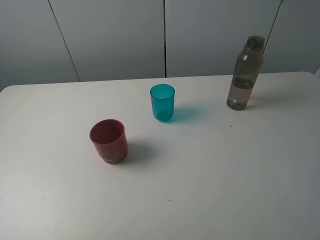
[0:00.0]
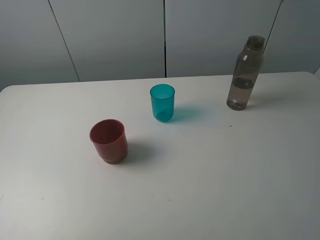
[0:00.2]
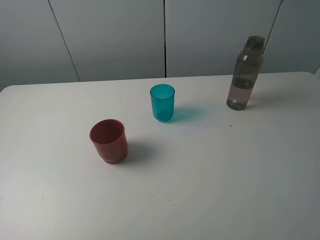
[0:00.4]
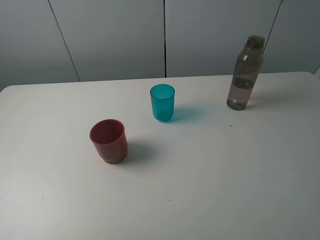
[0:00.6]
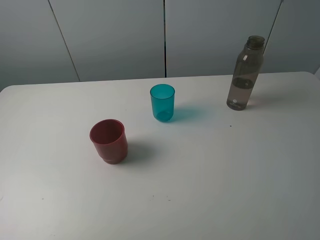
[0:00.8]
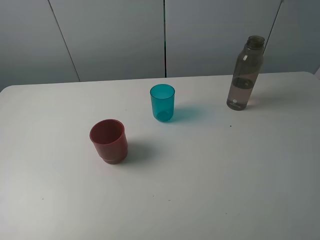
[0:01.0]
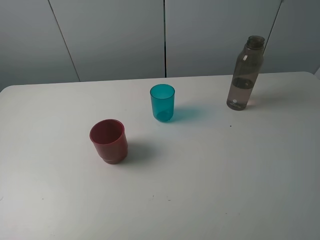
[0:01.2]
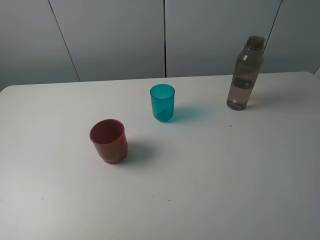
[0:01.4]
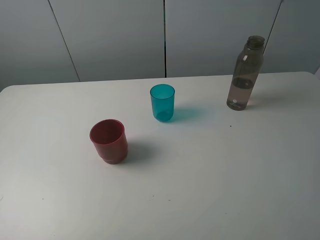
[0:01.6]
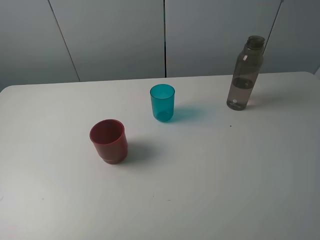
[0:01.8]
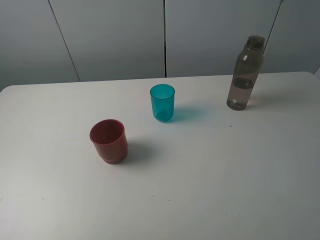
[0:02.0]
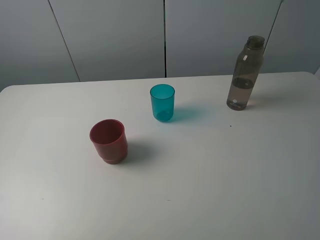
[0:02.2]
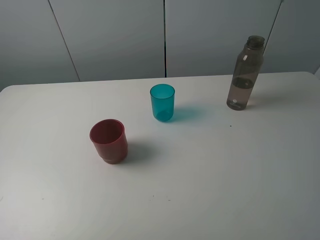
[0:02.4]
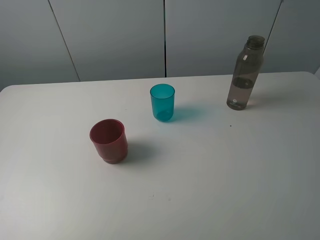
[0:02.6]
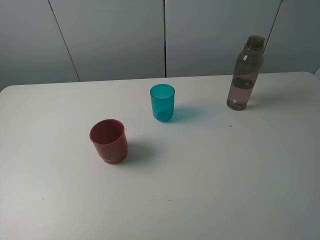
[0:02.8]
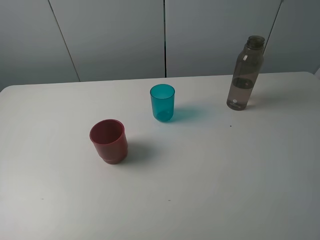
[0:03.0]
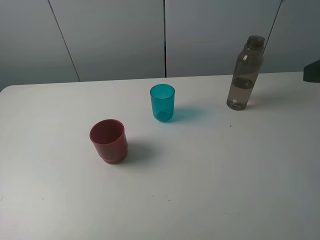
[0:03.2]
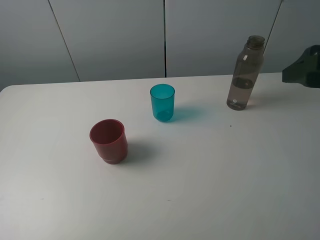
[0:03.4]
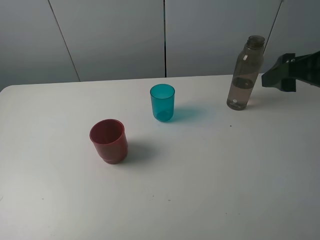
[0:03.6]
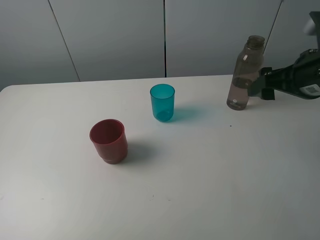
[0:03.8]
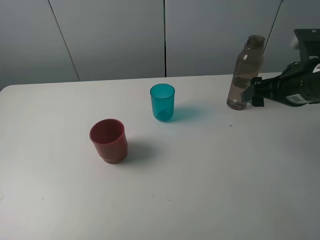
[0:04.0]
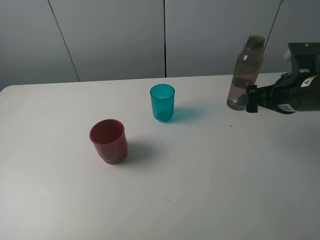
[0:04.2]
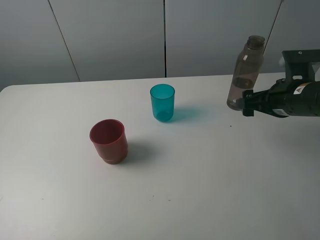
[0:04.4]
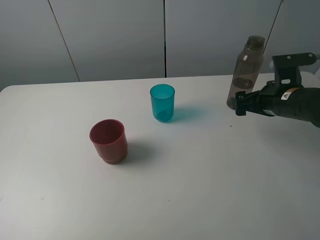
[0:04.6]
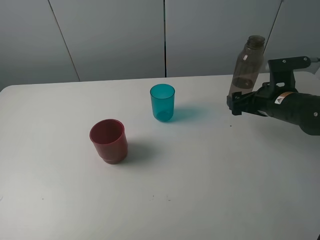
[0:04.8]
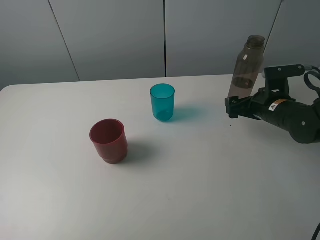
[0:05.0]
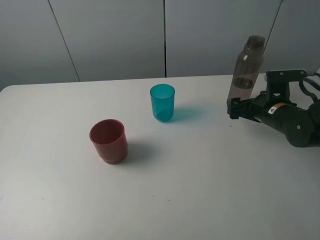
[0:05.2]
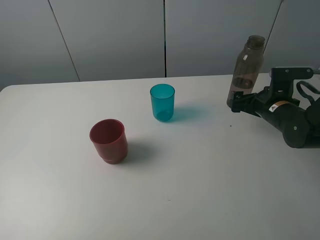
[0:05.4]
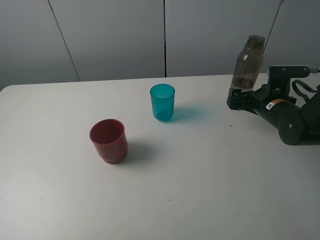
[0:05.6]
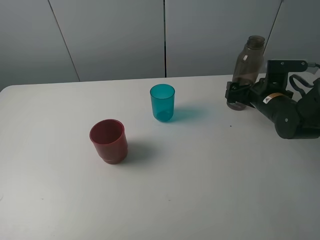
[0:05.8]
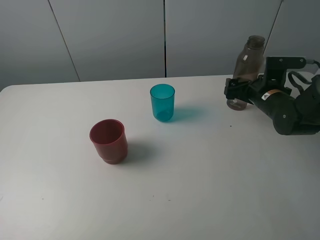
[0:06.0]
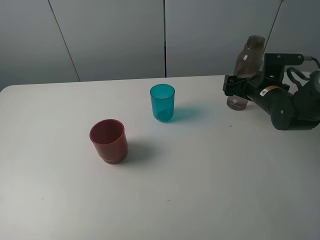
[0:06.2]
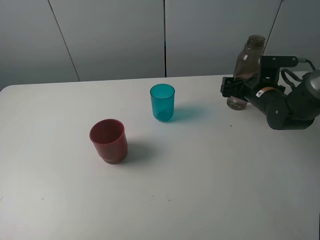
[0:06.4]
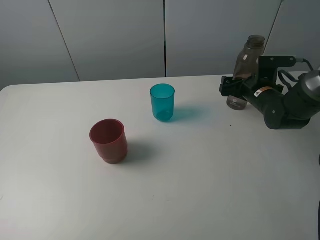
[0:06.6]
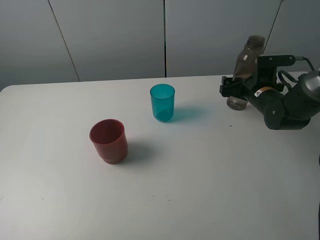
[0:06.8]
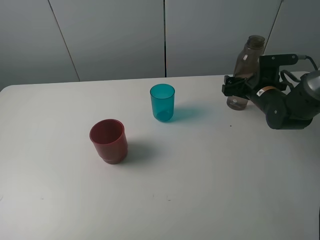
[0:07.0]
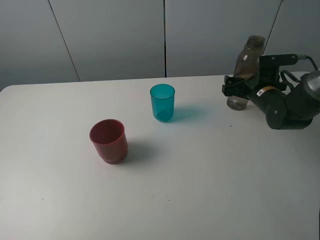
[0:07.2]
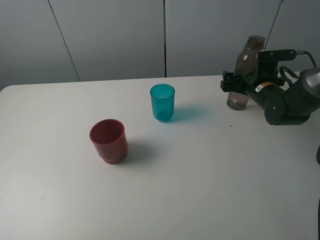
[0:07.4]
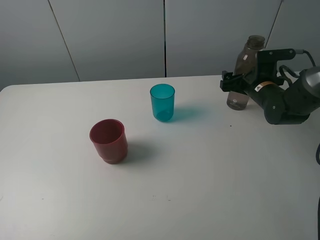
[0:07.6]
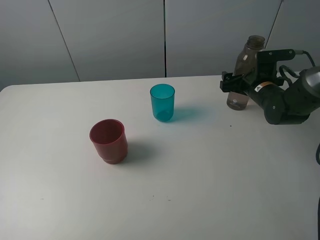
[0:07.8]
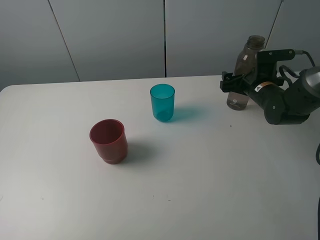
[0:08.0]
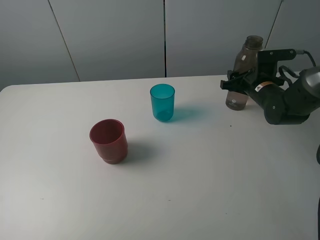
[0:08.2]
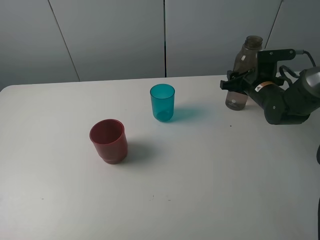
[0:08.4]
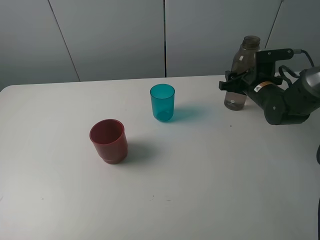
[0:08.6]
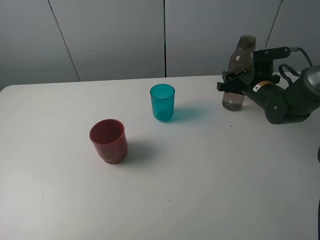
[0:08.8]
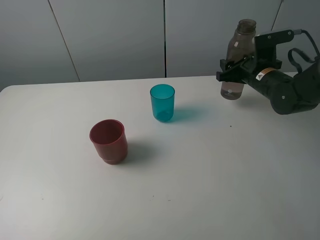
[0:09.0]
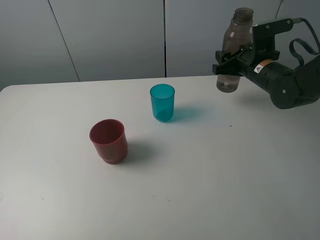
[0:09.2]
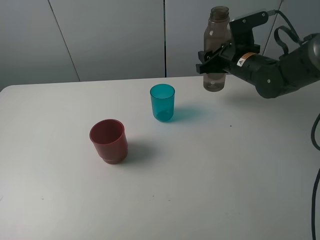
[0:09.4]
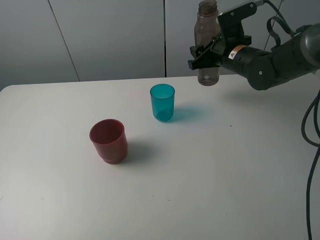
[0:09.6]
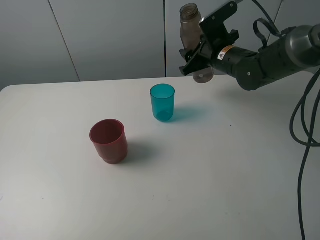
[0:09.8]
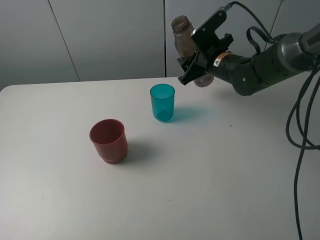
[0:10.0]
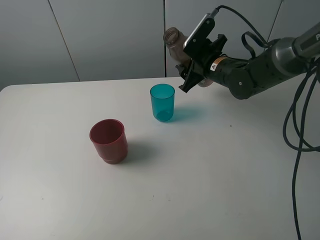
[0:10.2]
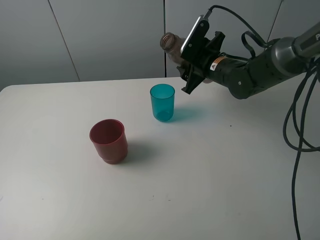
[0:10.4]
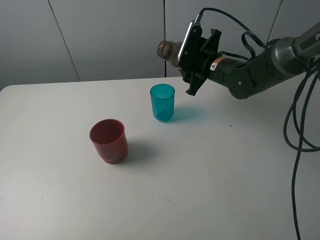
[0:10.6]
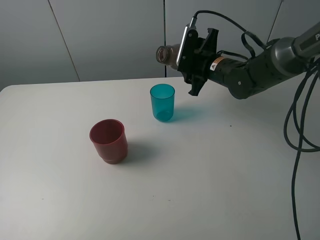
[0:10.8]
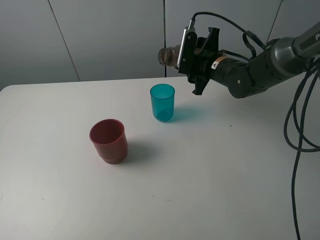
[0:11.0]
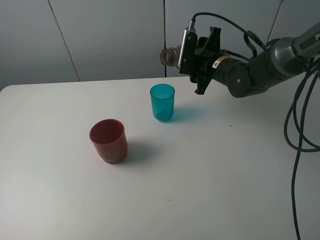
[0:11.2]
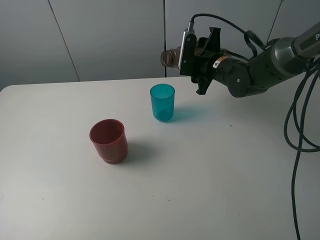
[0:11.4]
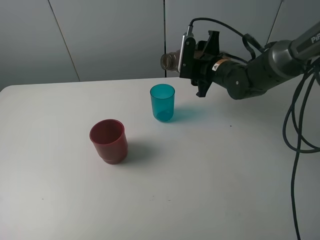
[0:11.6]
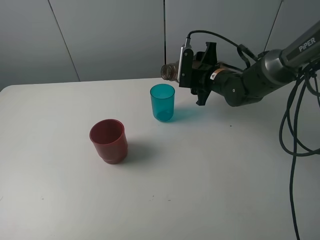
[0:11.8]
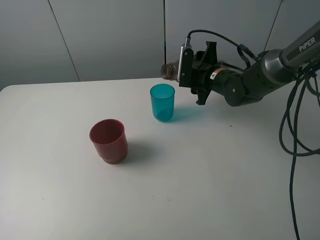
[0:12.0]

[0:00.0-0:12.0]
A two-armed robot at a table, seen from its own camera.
Task of the whole recording: pick up the bottle and pour water into the cup, then pick up the cup containing water and pour it into another cup.
Step, 0:00.0 to 0:08.4: Grasp the brown bottle with the right gripper.
0:03.0 to 0:04.4: The right gripper is displaced downward and forward by roughly 20 cm.
0:04.4 to 0:06.0: The right gripper goes about 10 cm forward and downward.
0:06.0 to 0:07.6: The grippers make only small movements.
0:07.6 to 0:09.0: The right gripper closes up.
0:09.0 to 0:10.4: The right gripper moves to the left, about 10 cm.

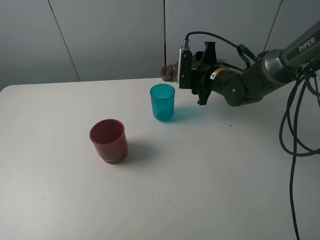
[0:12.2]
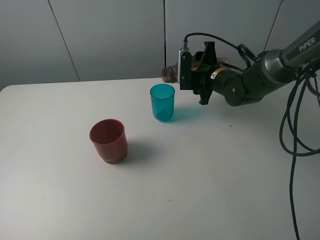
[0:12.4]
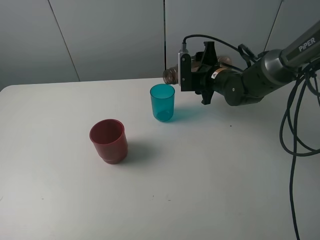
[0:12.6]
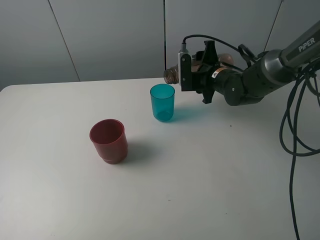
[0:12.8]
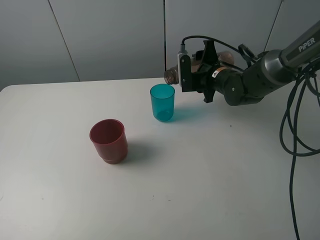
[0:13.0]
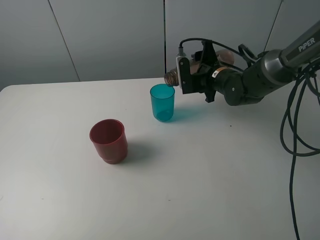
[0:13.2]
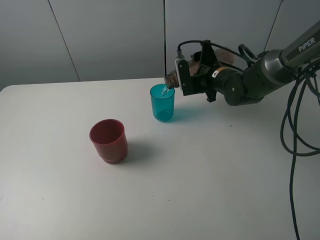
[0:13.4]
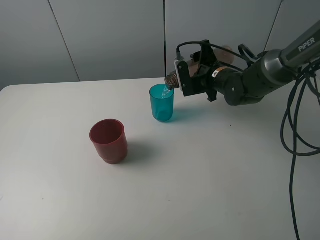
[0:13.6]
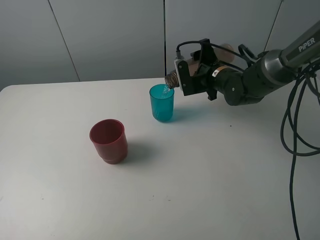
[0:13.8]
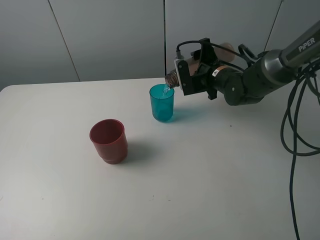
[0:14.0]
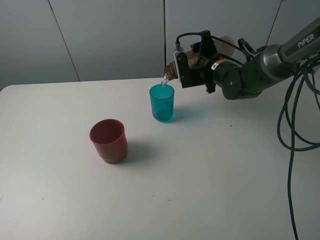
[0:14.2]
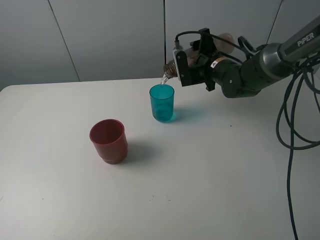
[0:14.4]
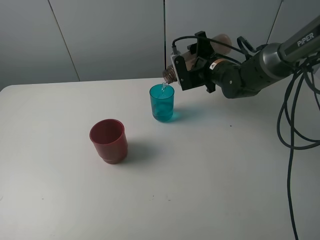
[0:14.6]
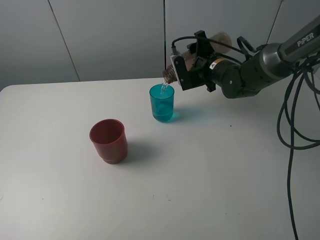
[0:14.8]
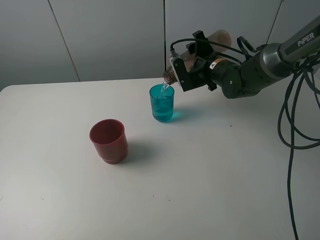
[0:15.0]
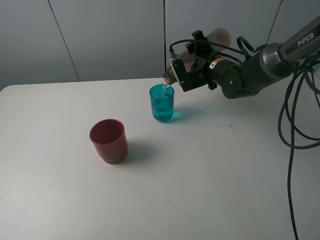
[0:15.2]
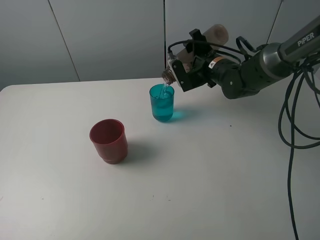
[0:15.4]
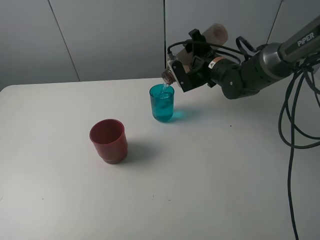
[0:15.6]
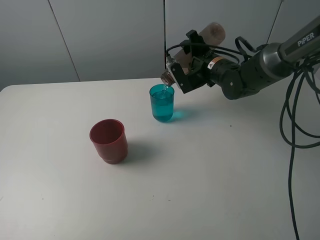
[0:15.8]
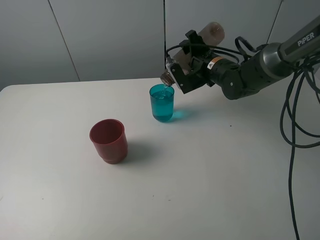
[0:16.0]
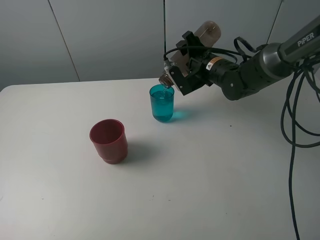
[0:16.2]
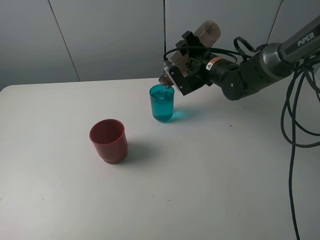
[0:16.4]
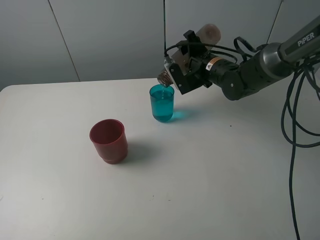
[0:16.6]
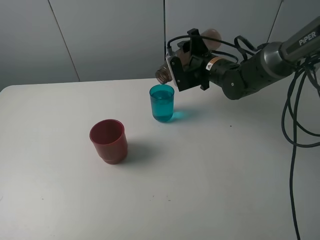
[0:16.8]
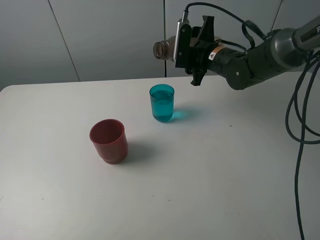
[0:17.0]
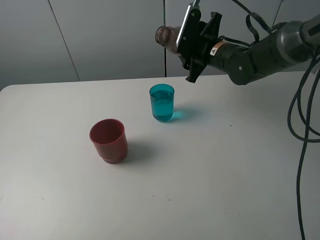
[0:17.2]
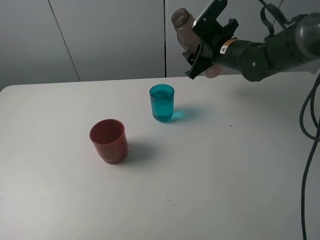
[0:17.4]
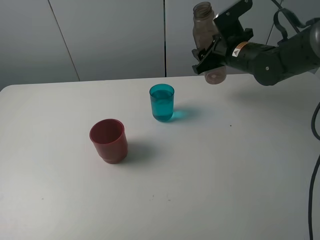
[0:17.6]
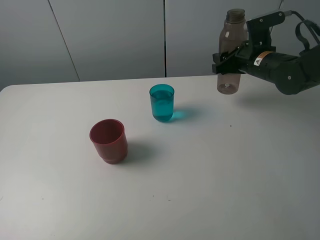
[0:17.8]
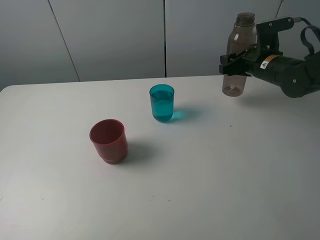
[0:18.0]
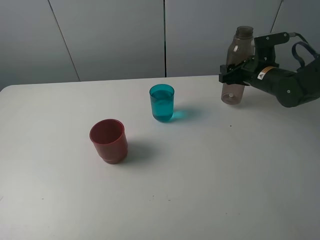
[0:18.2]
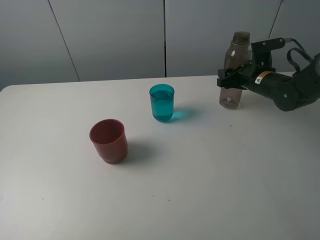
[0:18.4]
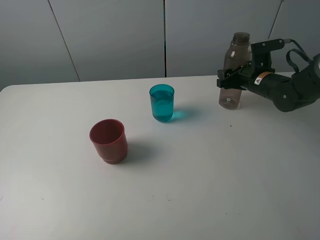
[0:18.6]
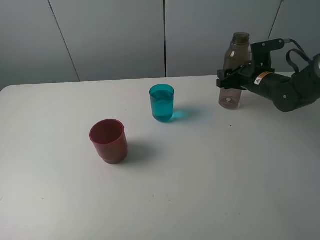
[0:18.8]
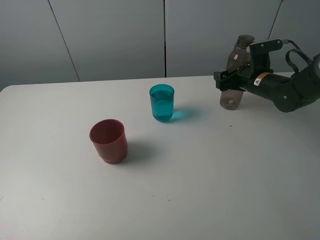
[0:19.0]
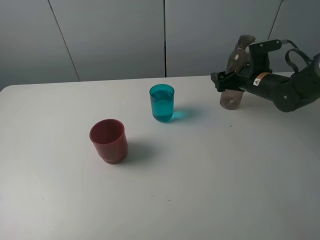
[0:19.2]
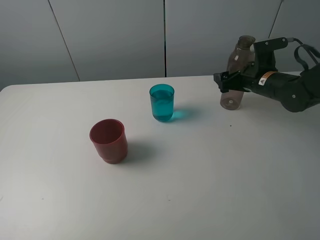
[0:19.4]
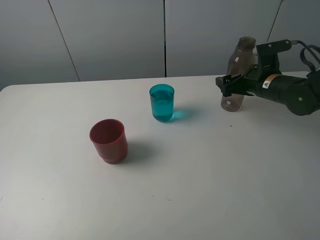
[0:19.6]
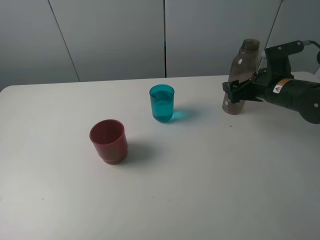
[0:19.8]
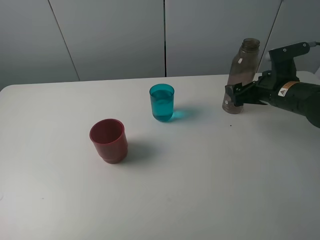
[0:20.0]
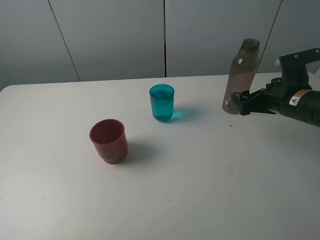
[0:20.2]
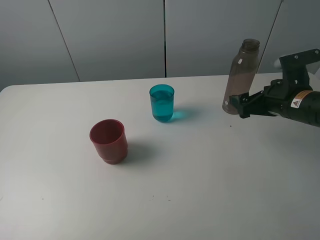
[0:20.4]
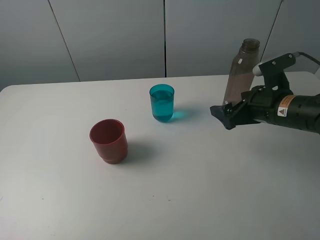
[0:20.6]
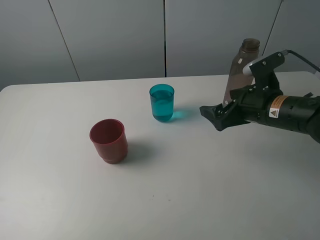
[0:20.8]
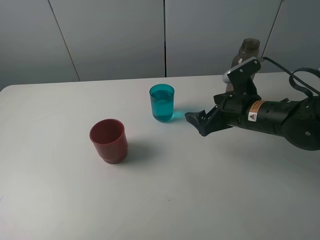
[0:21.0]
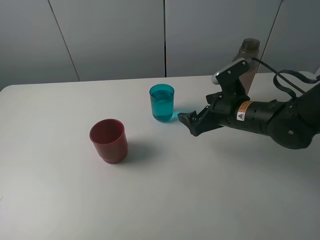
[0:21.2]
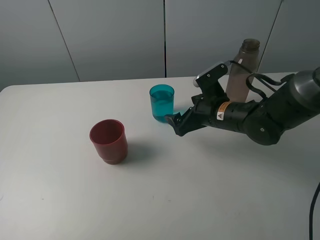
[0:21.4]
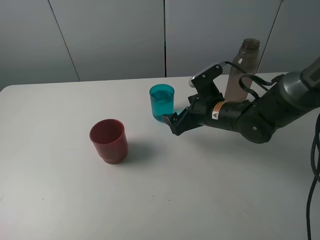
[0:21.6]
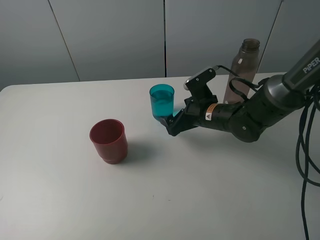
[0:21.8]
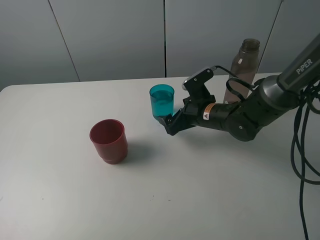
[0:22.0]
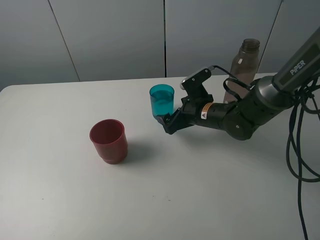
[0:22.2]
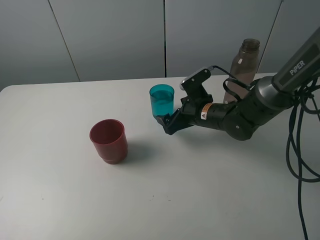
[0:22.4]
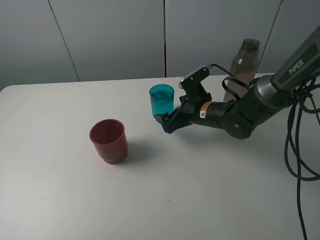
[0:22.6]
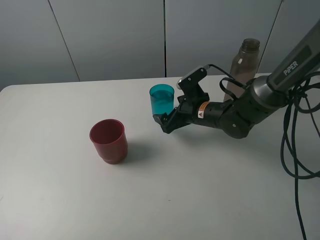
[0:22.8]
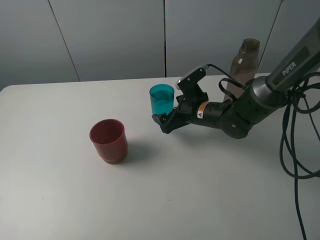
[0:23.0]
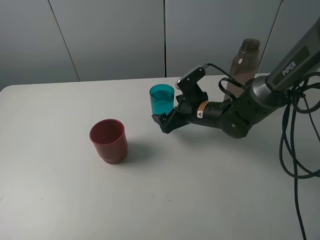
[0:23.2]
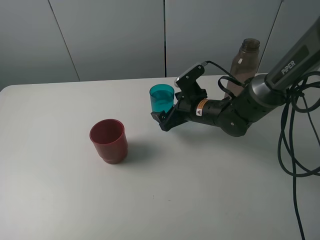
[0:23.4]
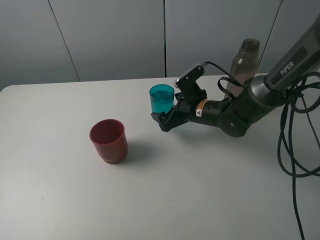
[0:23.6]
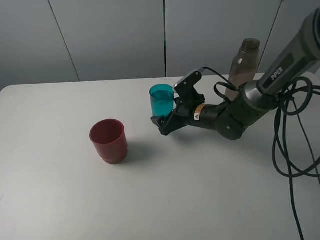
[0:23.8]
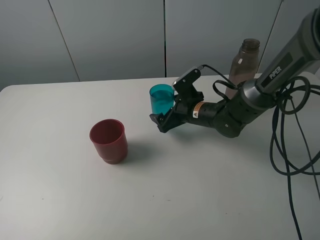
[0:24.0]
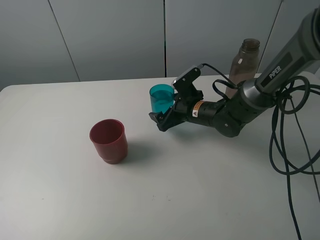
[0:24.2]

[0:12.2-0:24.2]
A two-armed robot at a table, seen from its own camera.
Task of the whole recording: pick up the bottle and pour water into the cup, then pick up the cup containing water and pour it into another cup.
Step, 0:12.2 to 0:16.8: Pour water from brown bottle to blue cup with the right gripper.
Step, 0:17.0 to 0:19.2: Place the brown bottle with the right gripper.
0:12.2 to 0:13.8: The grippers stay close to where they were, moving slightly.
0:13.8 to 0:15.2: The grippers move only a little.
0:15.2 to 0:16.6: The grippers make only small movements.
0:16.6 to 0:18.2: The right gripper heads to the right, covering roughly 10 cm.
0:18.2 to 0:19.8: The right gripper heads backward, covering about 5 cm, and opens.
0:19.8 to 0:21.2: The right gripper is displaced to the left by roughly 10 cm.
0:21.2 to 0:22.6: The right gripper travels forward by approximately 5 cm.
0:22.6 to 0:24.2: The grippers make only small movements.
